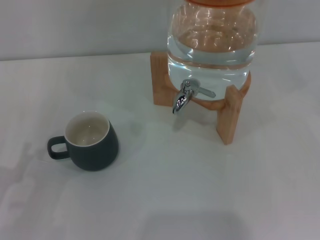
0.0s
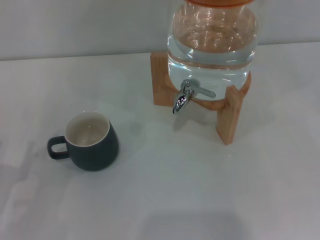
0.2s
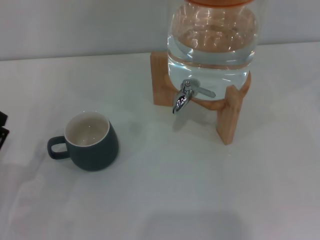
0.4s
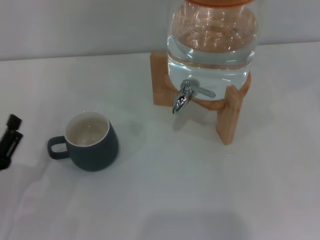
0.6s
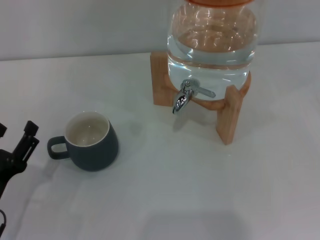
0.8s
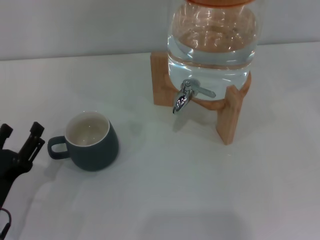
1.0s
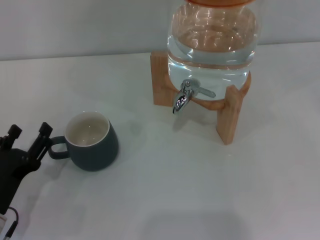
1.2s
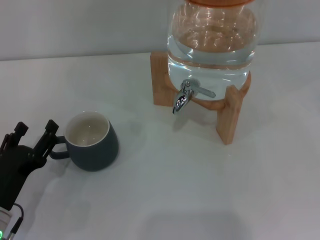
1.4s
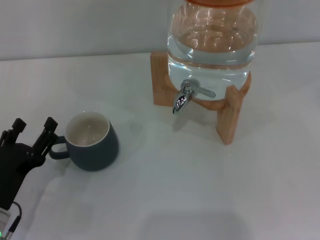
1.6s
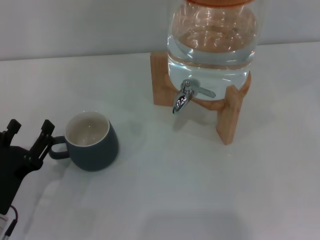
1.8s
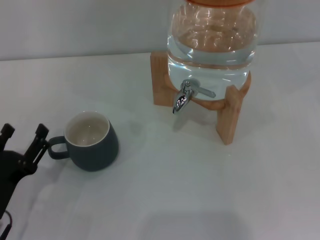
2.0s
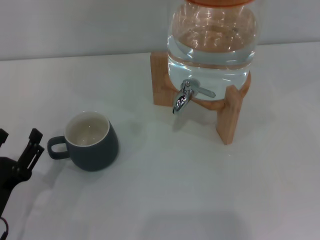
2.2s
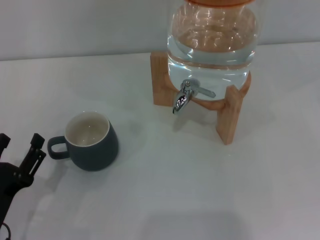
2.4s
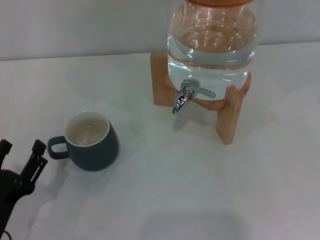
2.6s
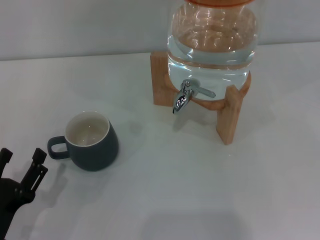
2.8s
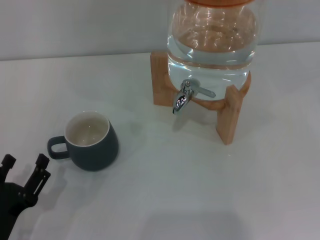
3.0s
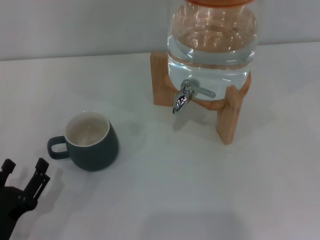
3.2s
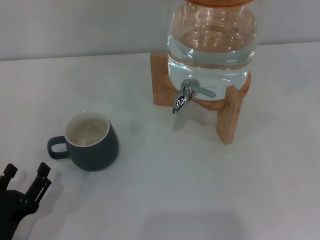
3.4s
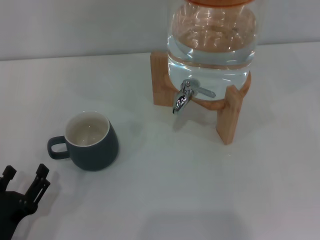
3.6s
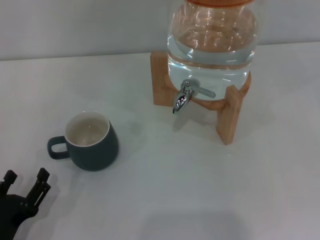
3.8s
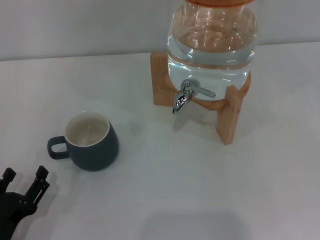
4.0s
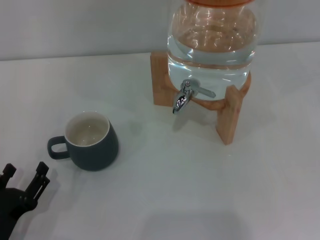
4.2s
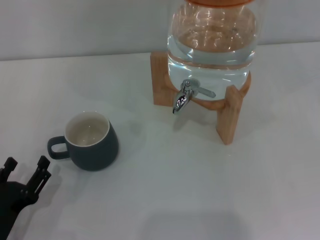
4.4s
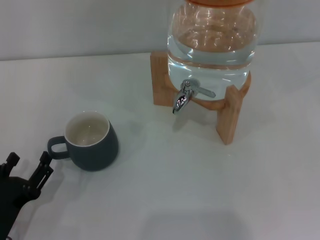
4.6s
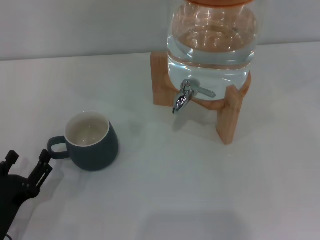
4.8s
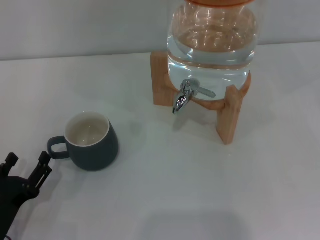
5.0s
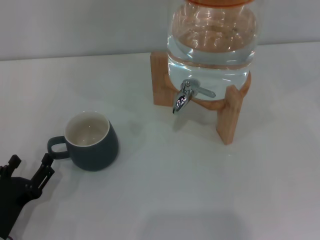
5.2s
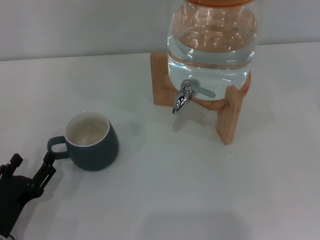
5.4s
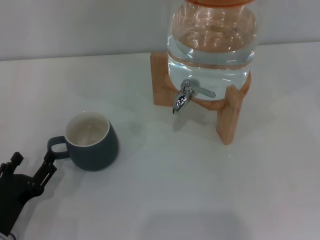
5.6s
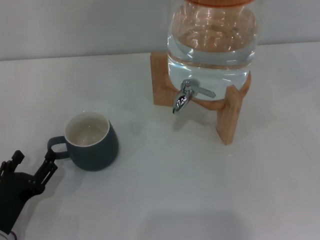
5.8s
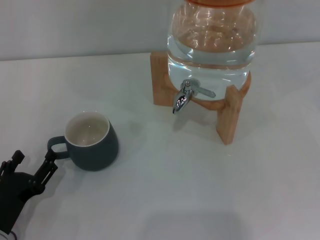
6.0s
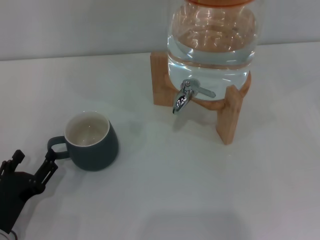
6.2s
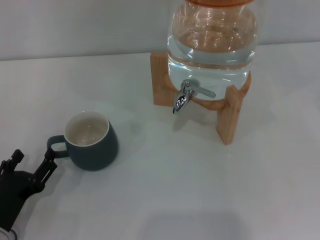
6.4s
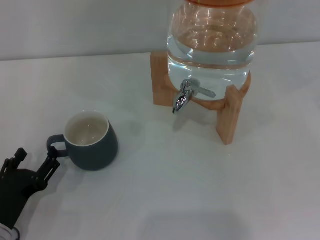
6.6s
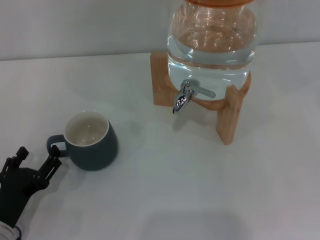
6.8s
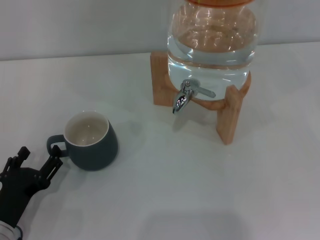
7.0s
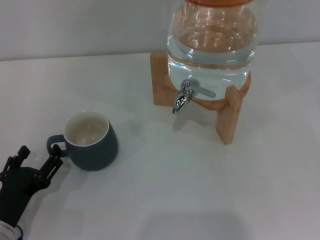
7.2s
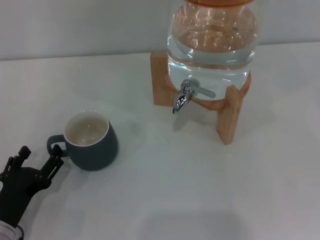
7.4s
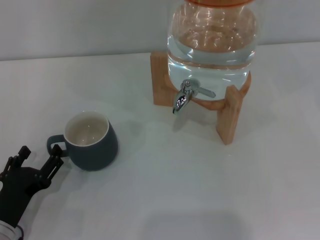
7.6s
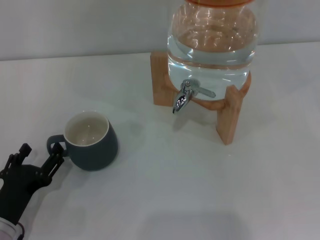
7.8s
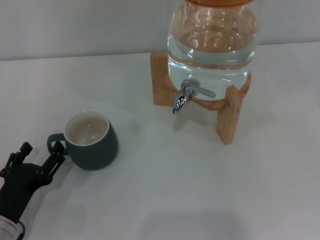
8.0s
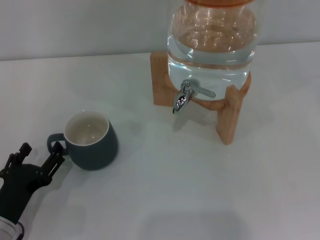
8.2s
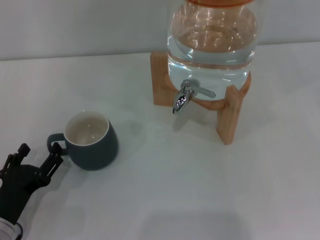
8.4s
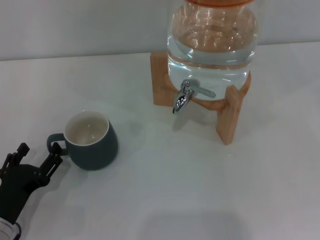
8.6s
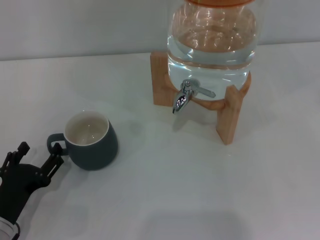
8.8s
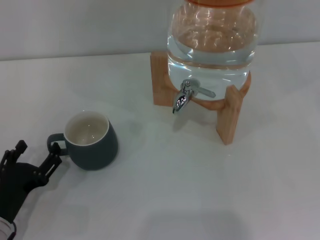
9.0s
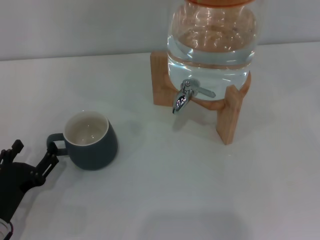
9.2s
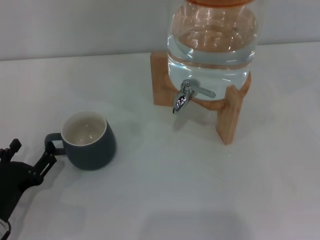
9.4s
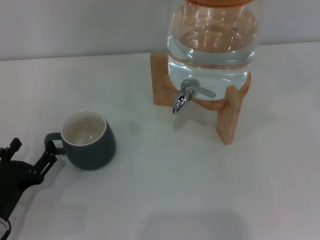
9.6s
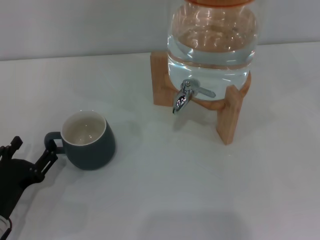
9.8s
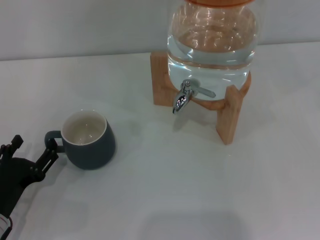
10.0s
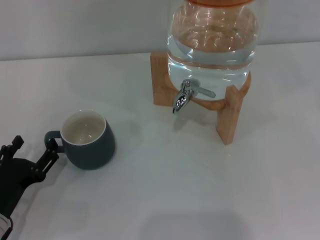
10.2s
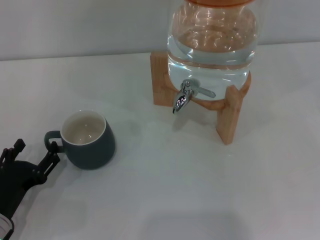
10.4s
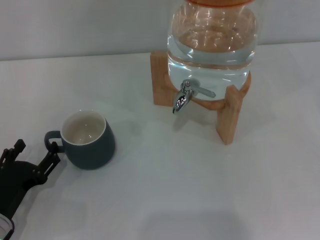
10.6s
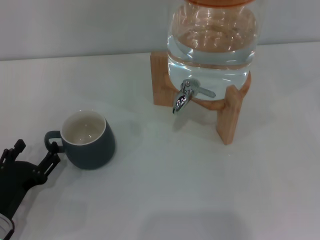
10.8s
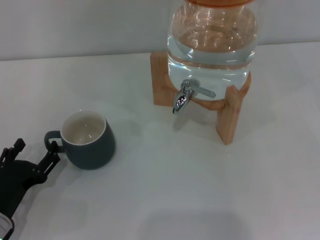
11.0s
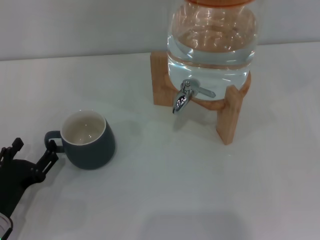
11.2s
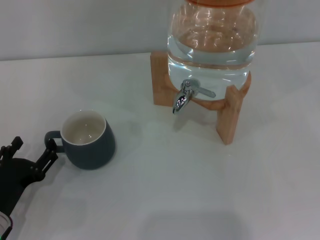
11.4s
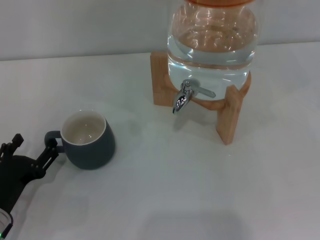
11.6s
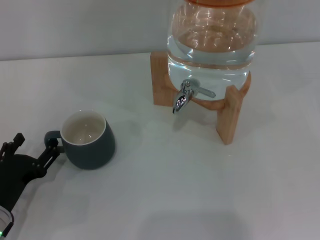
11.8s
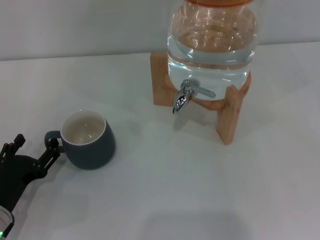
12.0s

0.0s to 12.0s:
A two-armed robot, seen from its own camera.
Task of the whole recording: the left gripper pick up the black cup and place it horizontally under the faucet, the right gripper turn on the faucet to fill the cup, and then turn off the faucet.
0.0s to 1.6s: The left gripper travels to the right by about 5 cm.
1.6s to 3.0s: The left gripper travels backward by some 5 cm.
4.4s to 6.0s: The grippers make only small movements.
6.0s to 7.6s: The two grippers keep their place.
7.6s to 9.0s: The grippers stay close to where they were, moving slightly.
9.0s to 10.4s: The two grippers keep their place.
10.4s to 12.0s: Neither gripper changes place.

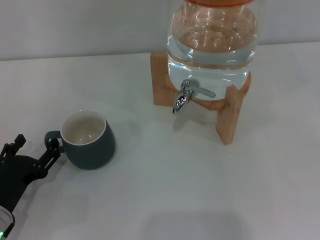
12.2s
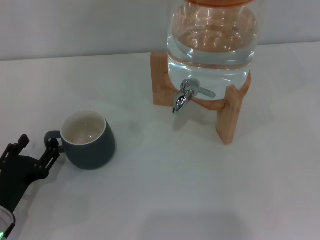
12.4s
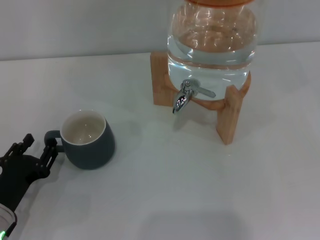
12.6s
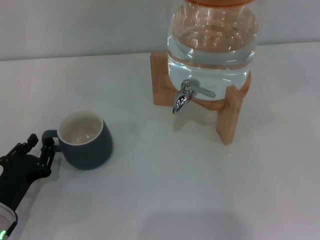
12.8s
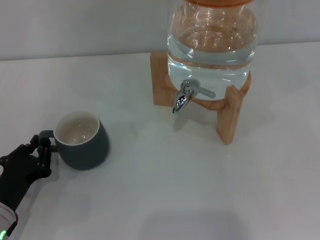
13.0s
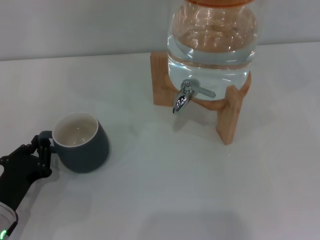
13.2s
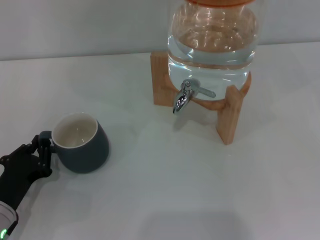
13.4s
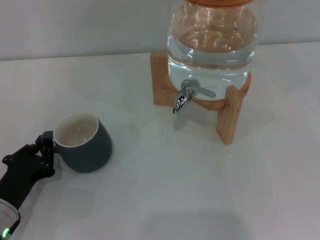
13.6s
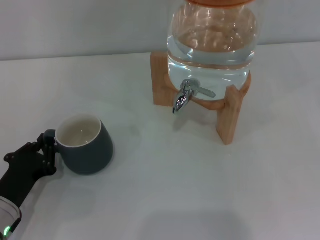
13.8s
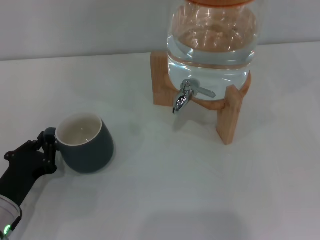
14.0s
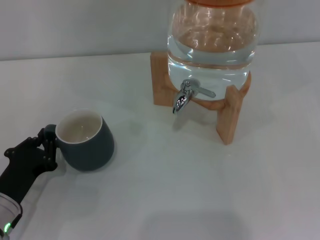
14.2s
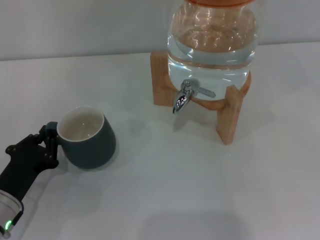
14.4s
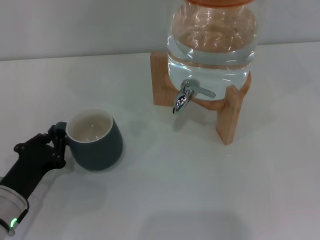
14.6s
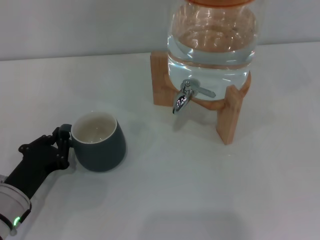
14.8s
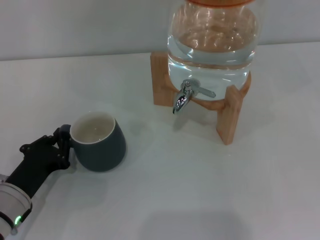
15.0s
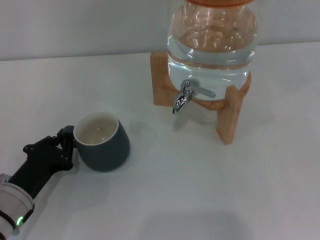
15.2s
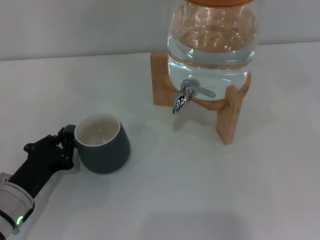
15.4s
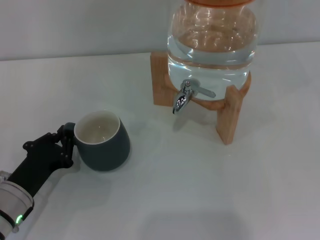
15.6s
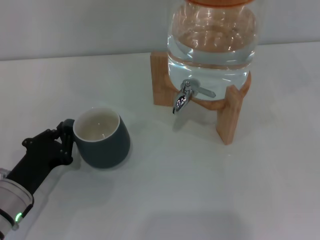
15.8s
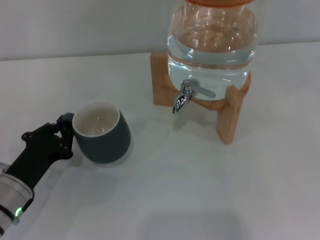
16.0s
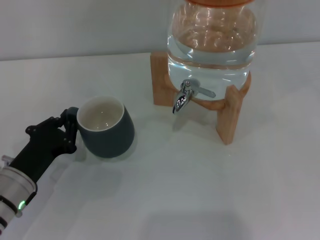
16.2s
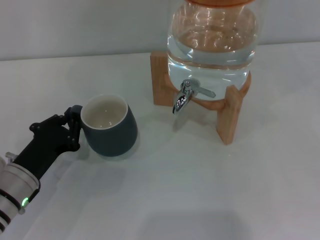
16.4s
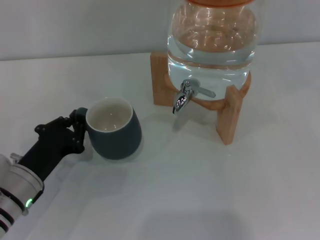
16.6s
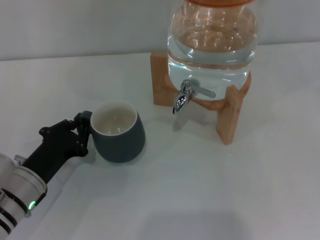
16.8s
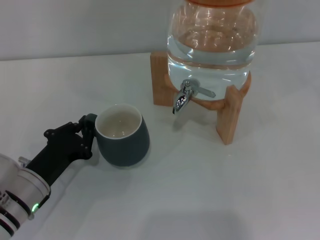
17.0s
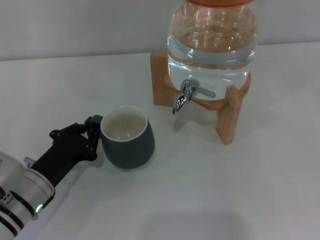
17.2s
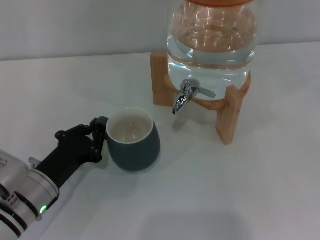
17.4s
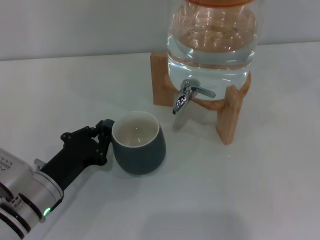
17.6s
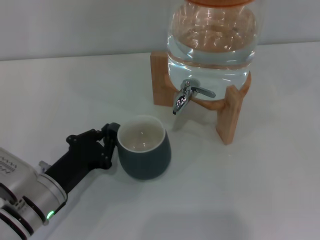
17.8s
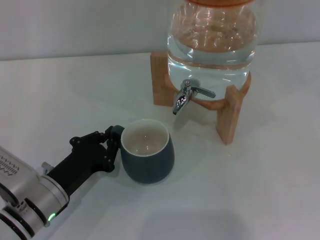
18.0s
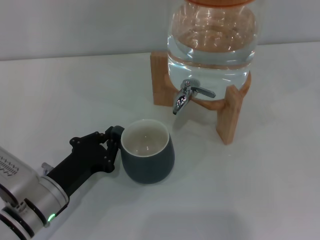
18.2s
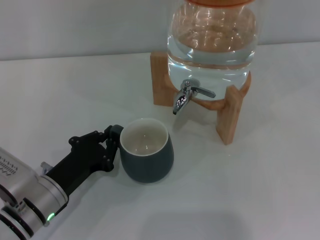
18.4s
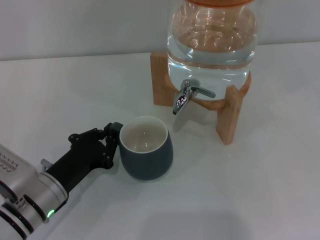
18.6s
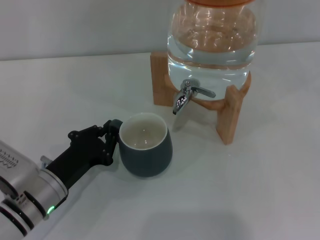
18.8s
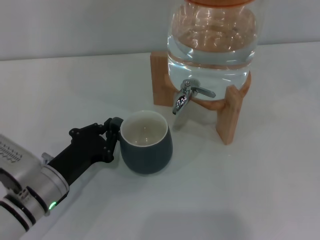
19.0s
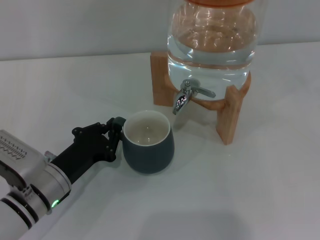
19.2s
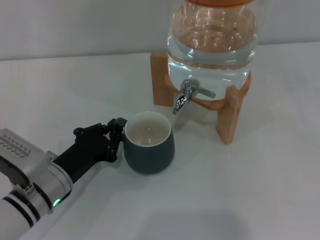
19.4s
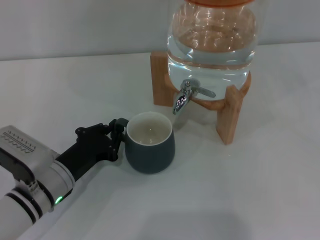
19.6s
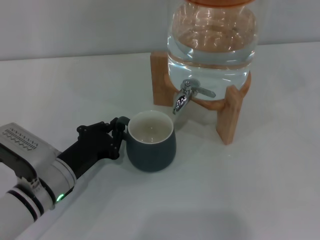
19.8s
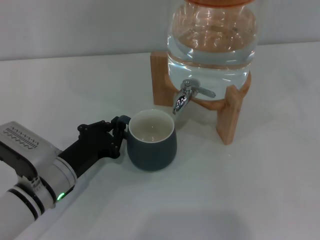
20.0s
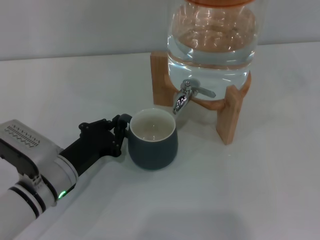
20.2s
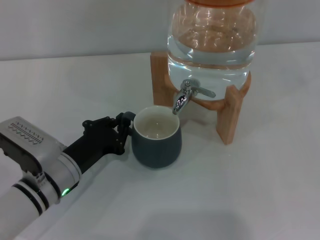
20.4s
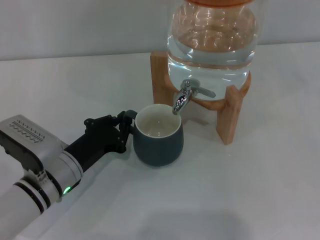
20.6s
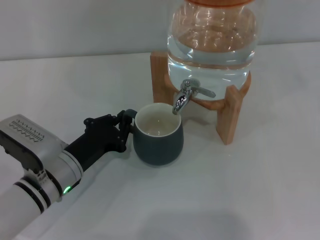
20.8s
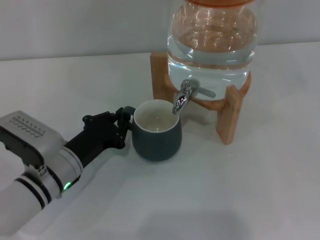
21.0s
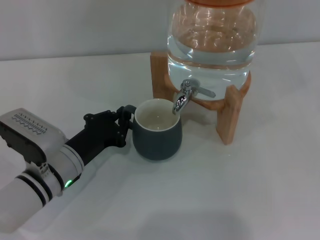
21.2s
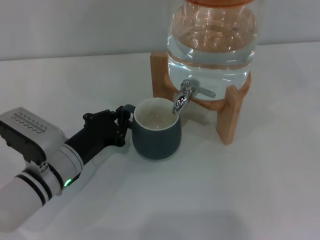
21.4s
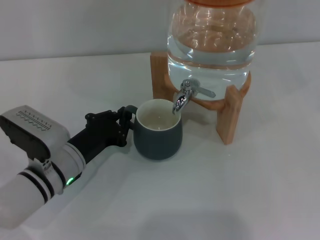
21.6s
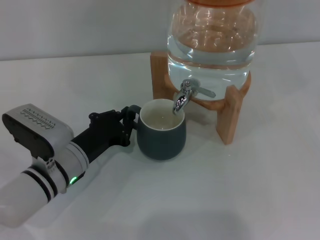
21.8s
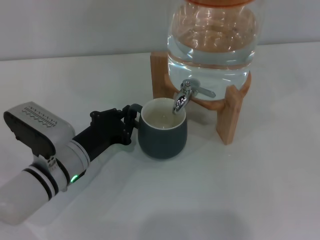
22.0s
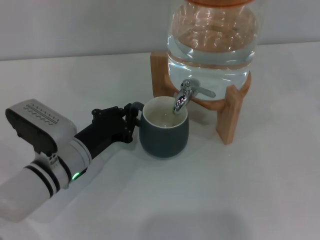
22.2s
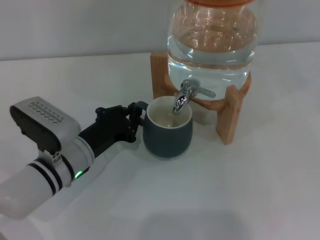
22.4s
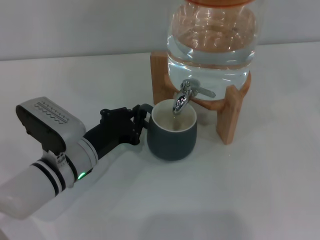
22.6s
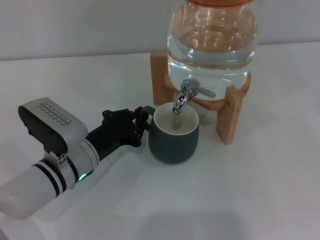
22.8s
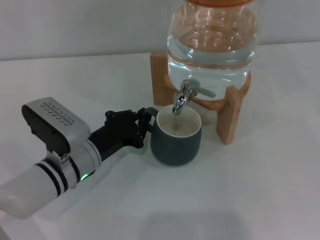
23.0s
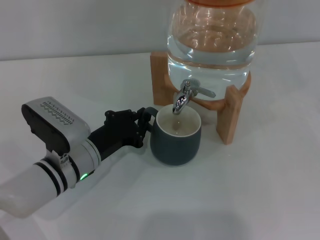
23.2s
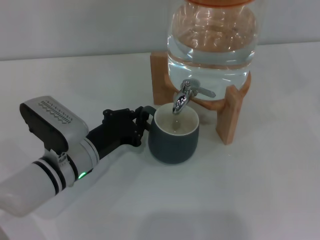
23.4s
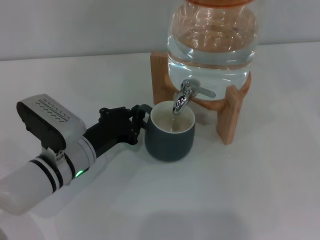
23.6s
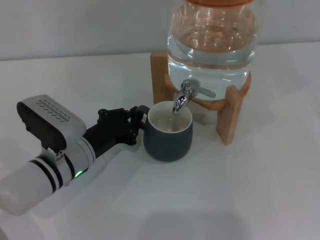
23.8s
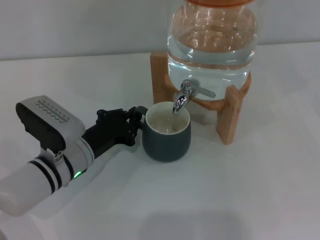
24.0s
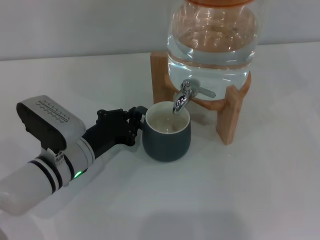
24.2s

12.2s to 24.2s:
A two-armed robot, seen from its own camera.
Task of the whole recording: the left gripper pick up the black cup and place it horizontally under the faucet, the right gripper turn on the faucet to fill the cup, and then turn off the faucet.
12.2s to 13.8s: The left gripper closes.
13.8s to 16.6s: The grippers move only a little.
16.6s to 19.8s: There are only small adjustments of the grippers.
19.8s to 22.6s: There are only small adjustments of the grippers.
22.6s to 24.2s: The two grippers keep their place.
